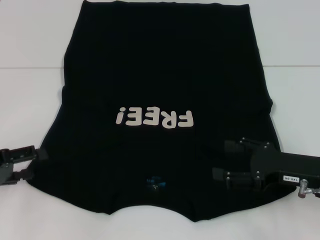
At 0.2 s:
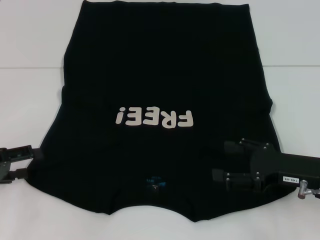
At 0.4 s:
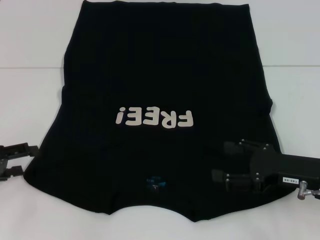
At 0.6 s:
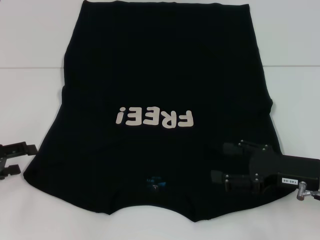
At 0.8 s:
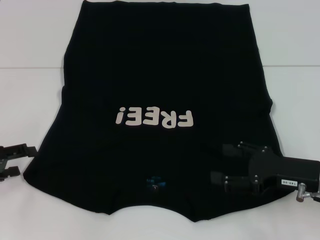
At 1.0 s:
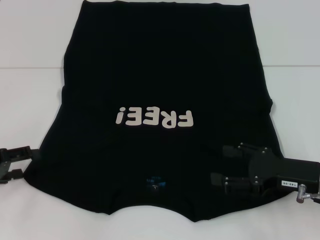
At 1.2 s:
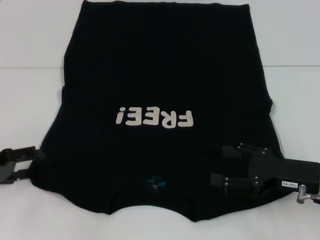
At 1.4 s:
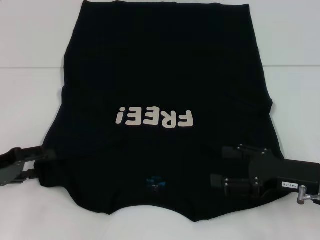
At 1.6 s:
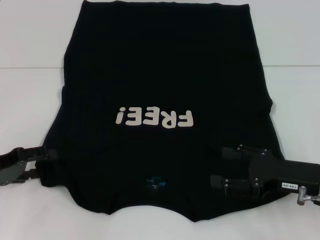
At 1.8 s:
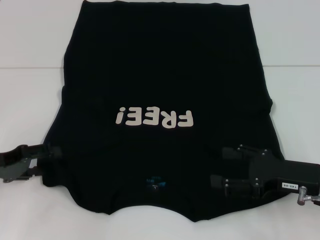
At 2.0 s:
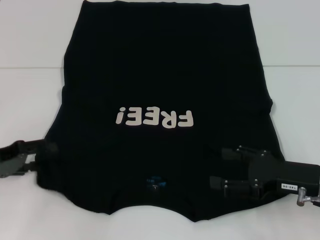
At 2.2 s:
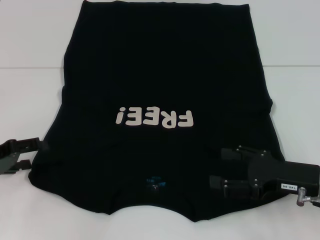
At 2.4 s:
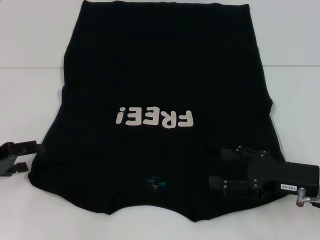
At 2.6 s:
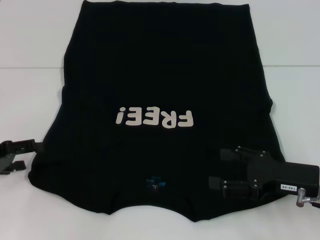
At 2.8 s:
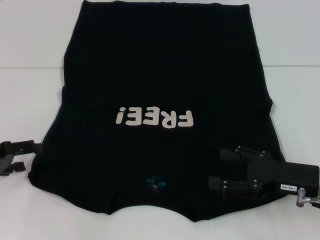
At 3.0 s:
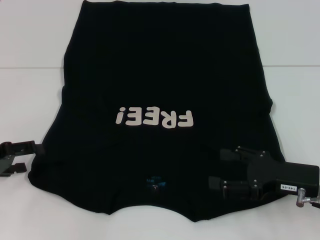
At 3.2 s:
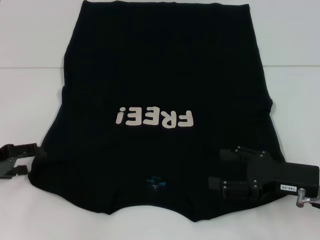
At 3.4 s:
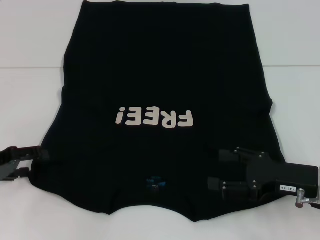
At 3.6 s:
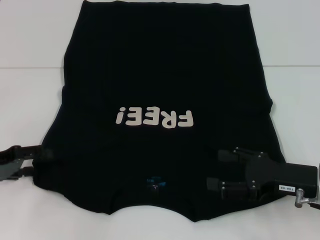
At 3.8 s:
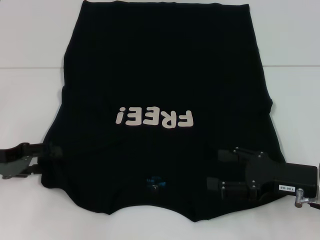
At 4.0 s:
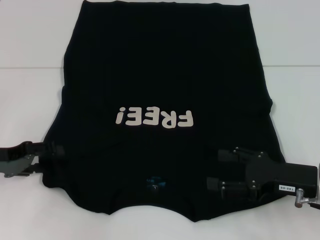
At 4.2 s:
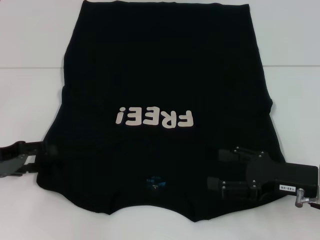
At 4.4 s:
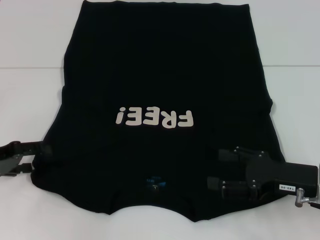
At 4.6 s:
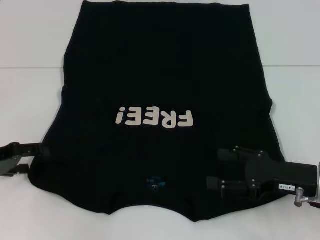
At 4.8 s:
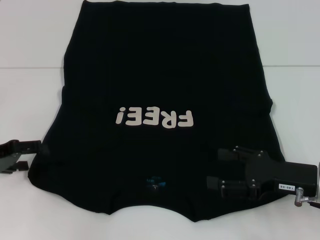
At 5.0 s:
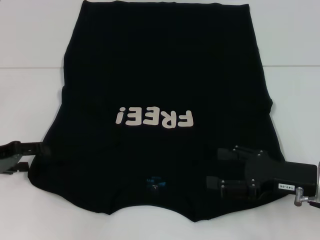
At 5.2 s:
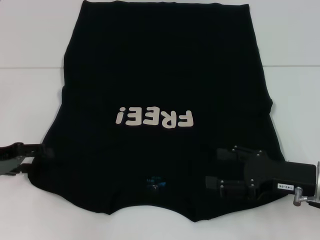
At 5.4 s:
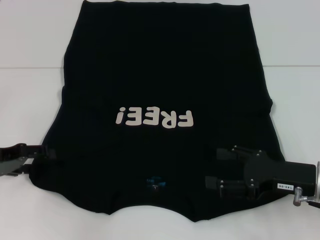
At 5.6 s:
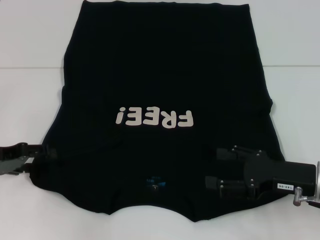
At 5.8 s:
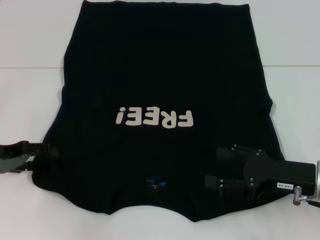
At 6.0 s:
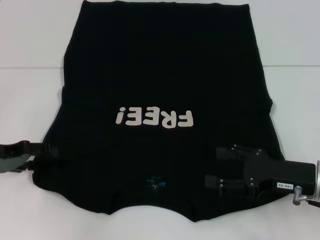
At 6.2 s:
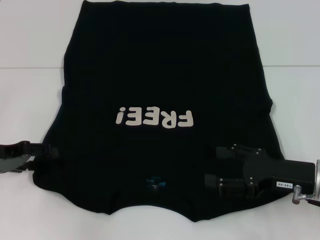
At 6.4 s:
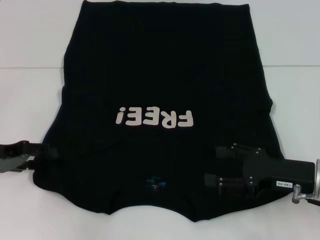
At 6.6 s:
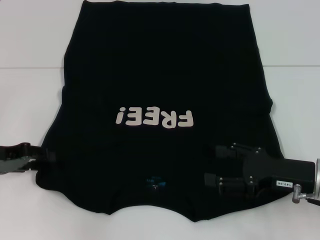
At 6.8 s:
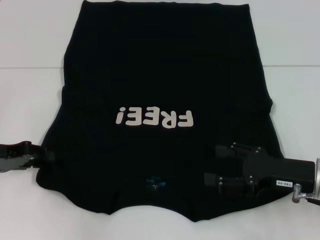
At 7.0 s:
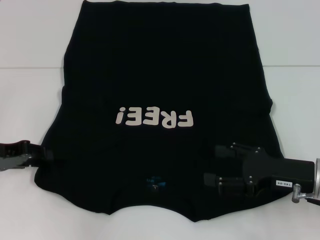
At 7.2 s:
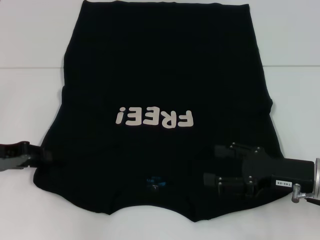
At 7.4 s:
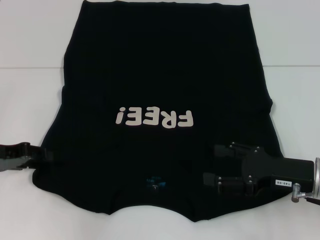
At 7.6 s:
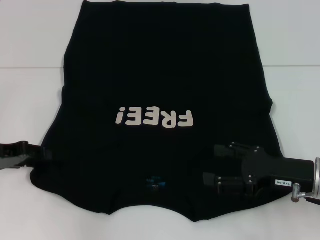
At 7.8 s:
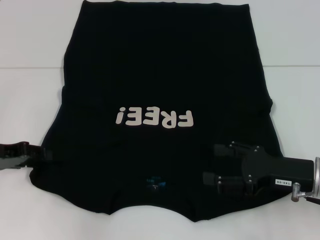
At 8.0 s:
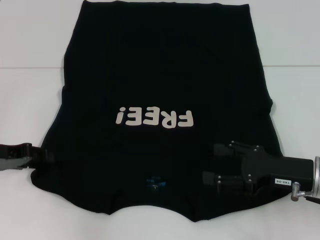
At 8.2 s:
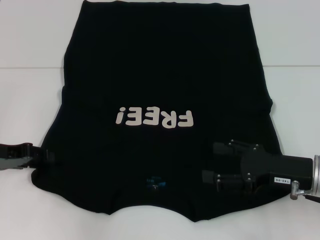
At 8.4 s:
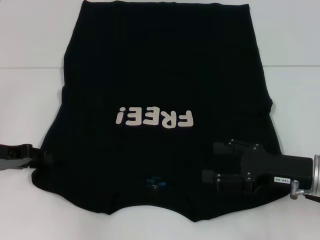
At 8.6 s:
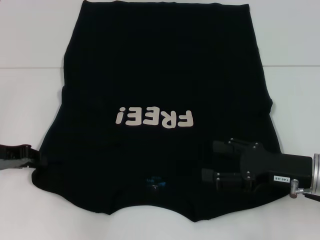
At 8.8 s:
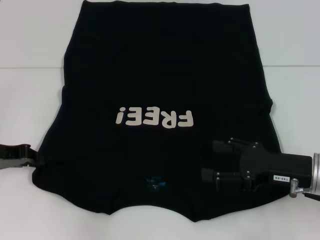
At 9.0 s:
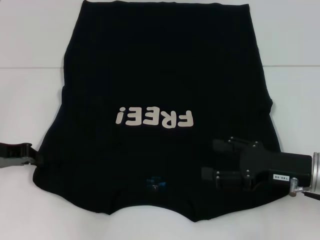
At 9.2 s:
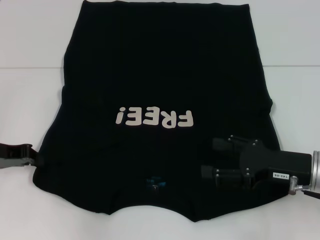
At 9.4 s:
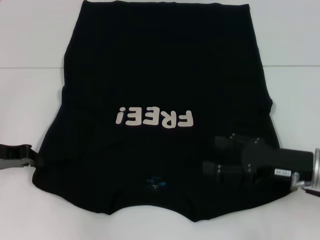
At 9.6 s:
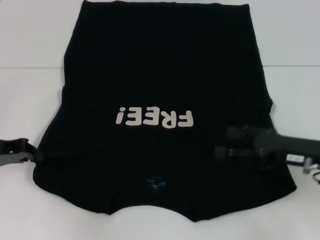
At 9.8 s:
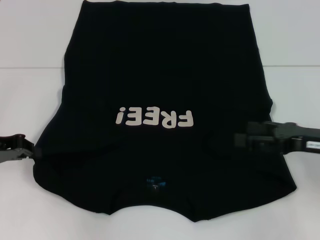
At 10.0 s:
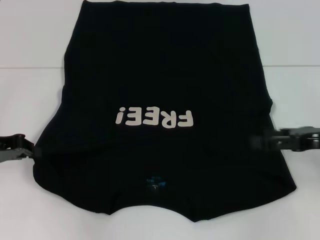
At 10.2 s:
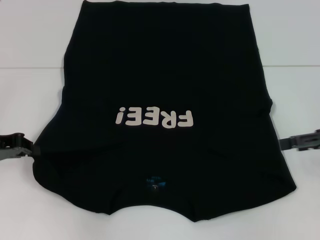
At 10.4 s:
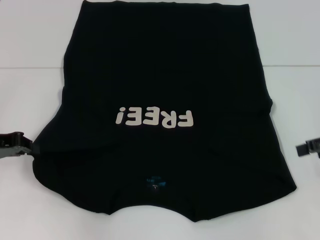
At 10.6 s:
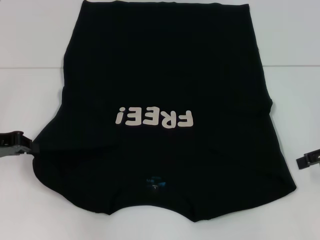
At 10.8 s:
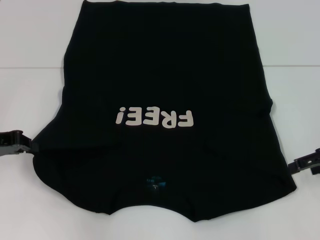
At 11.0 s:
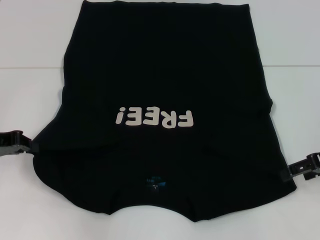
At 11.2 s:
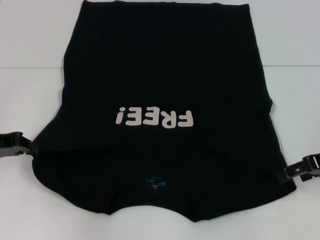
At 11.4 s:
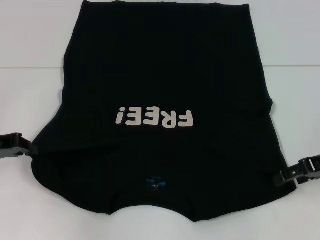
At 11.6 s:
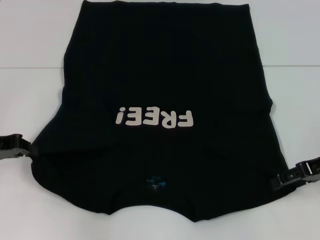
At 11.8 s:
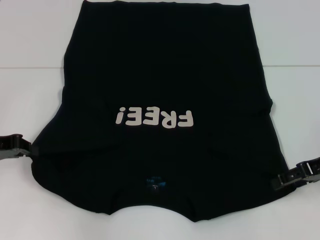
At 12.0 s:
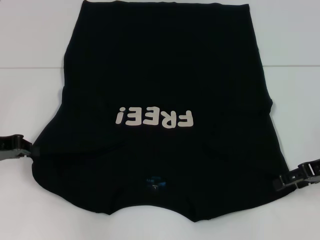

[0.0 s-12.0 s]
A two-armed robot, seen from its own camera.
Step, 0.0 to 10.0 s: Grab the bottom left corner with your left hand.
0.0 to 6.0 s: There are only small adjustments of the grippers.
6.0 to 7.6 s: The left gripper closes up.
9.0 to 10.4 s: The right gripper shifts about 15 cm to the right and upward.
10.4 to 12.0 s: The right gripper changes place by approximately 5 cm.

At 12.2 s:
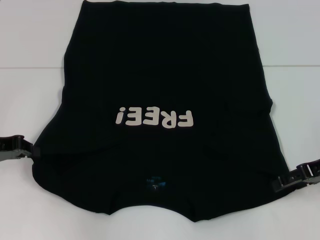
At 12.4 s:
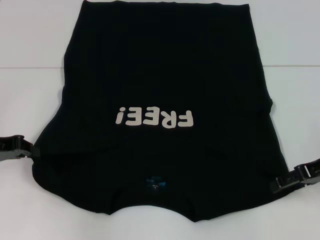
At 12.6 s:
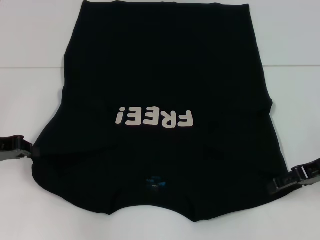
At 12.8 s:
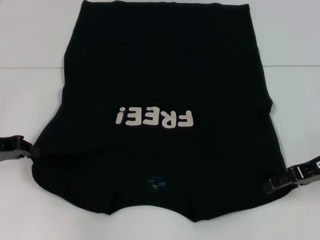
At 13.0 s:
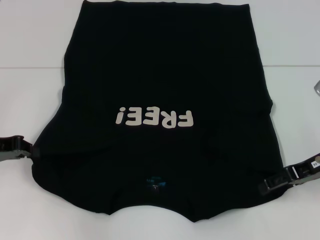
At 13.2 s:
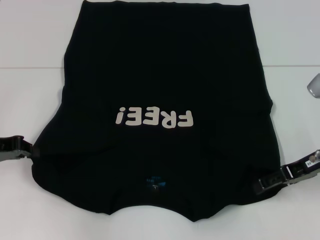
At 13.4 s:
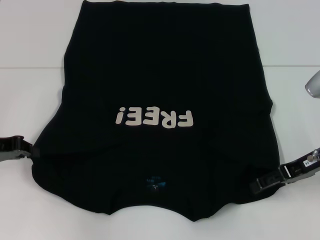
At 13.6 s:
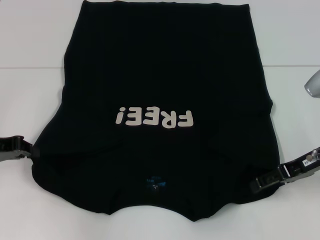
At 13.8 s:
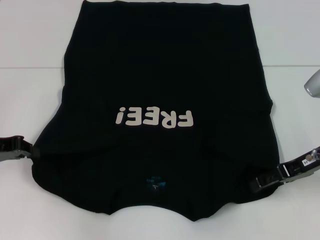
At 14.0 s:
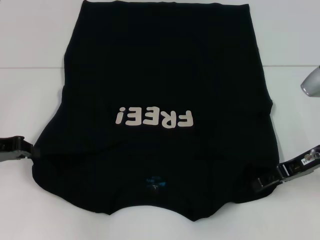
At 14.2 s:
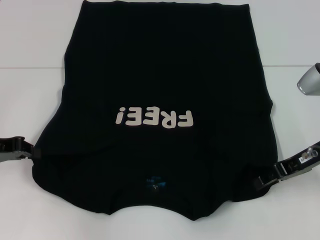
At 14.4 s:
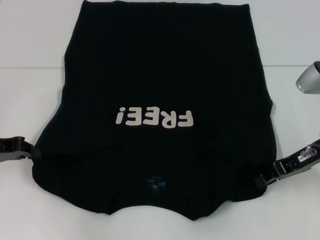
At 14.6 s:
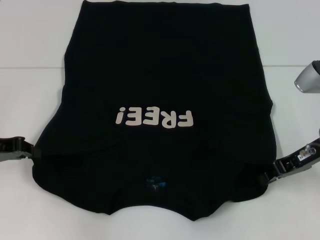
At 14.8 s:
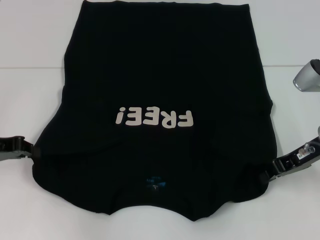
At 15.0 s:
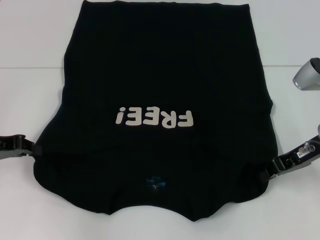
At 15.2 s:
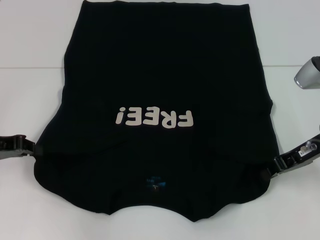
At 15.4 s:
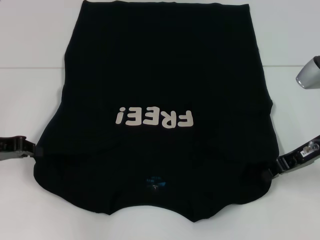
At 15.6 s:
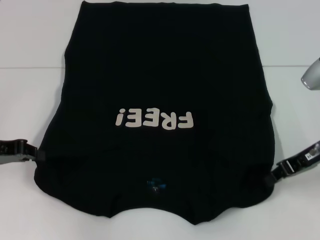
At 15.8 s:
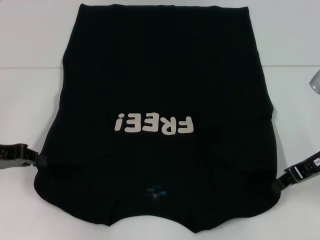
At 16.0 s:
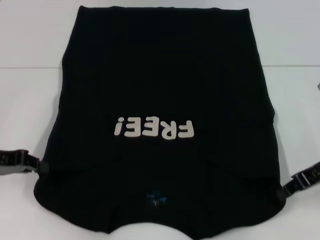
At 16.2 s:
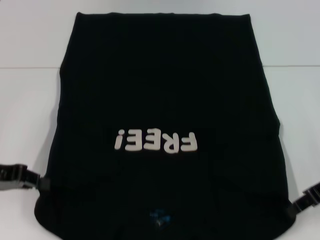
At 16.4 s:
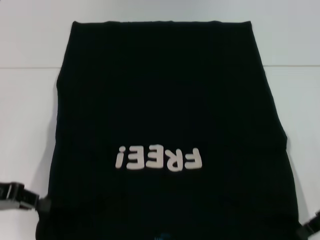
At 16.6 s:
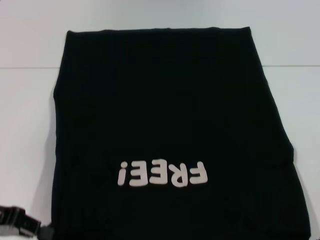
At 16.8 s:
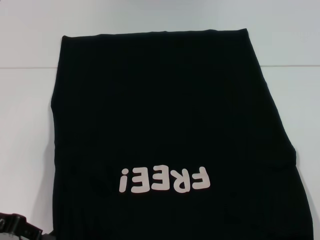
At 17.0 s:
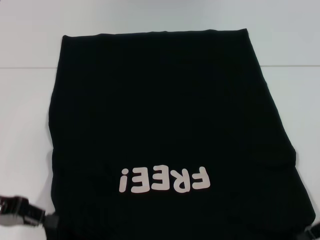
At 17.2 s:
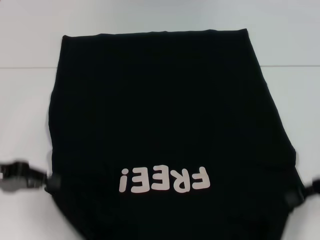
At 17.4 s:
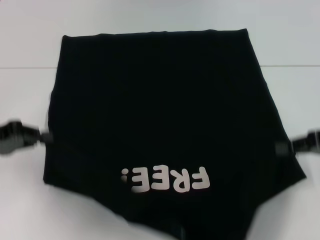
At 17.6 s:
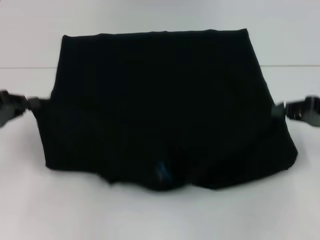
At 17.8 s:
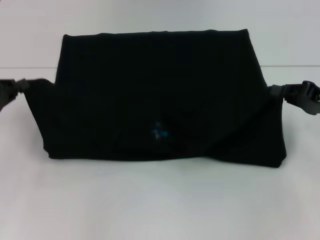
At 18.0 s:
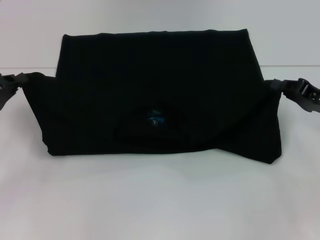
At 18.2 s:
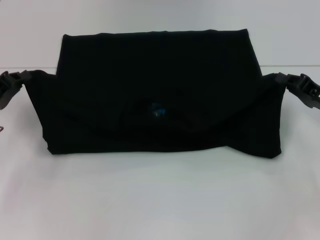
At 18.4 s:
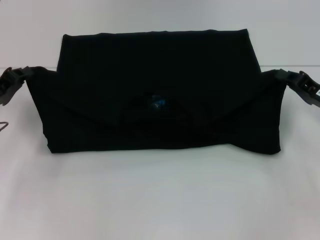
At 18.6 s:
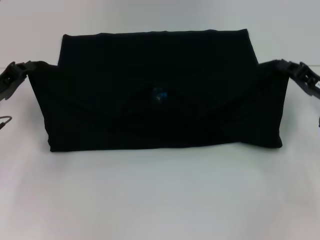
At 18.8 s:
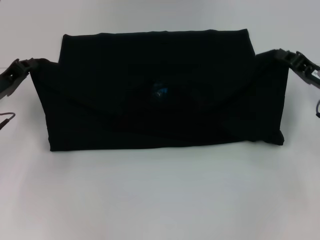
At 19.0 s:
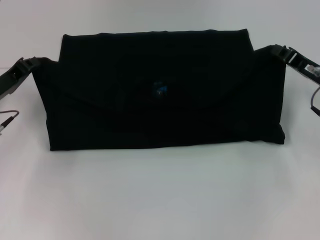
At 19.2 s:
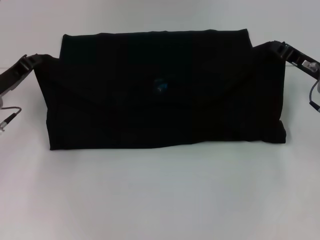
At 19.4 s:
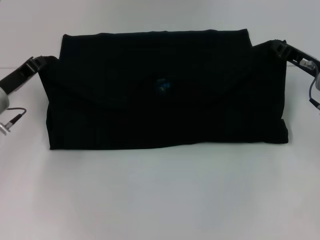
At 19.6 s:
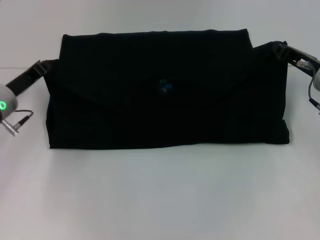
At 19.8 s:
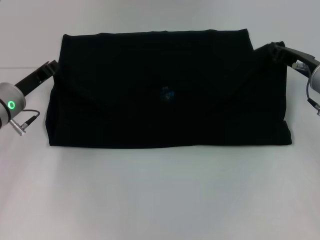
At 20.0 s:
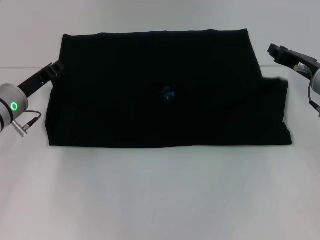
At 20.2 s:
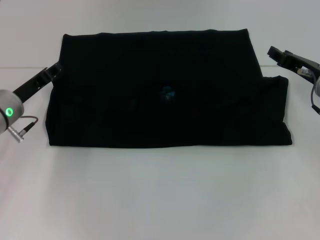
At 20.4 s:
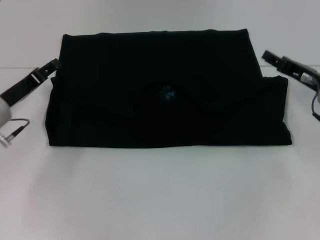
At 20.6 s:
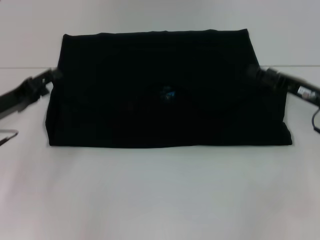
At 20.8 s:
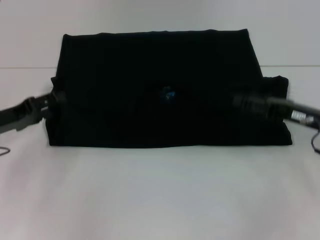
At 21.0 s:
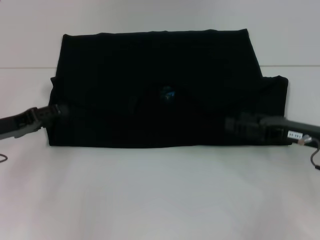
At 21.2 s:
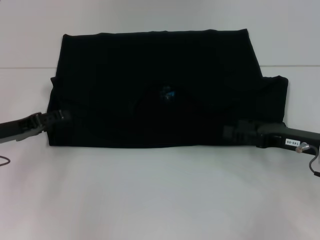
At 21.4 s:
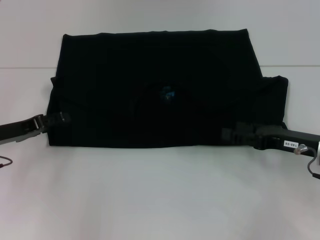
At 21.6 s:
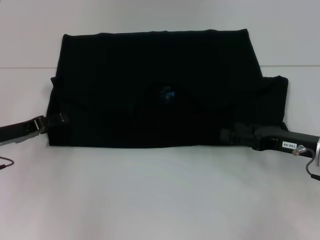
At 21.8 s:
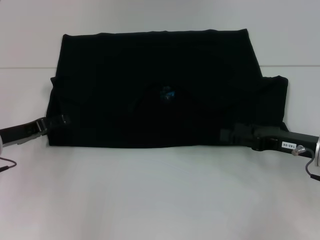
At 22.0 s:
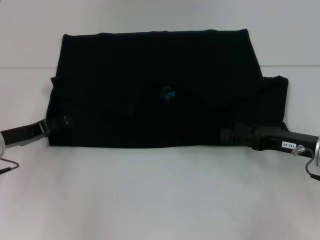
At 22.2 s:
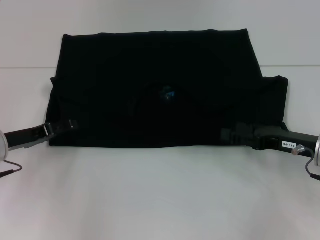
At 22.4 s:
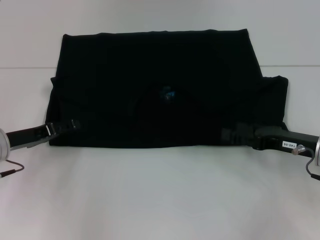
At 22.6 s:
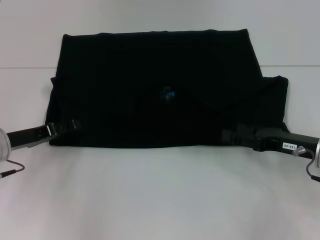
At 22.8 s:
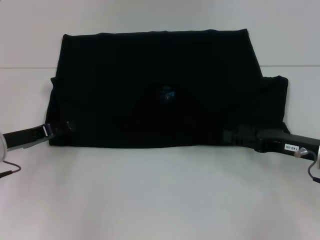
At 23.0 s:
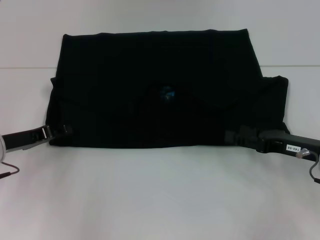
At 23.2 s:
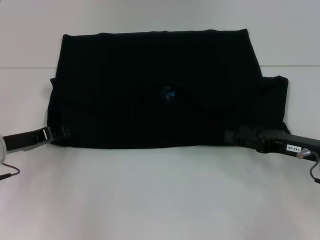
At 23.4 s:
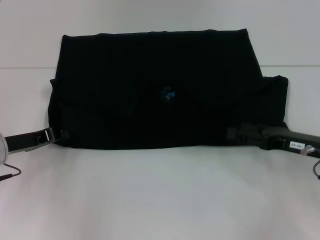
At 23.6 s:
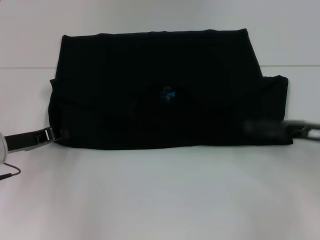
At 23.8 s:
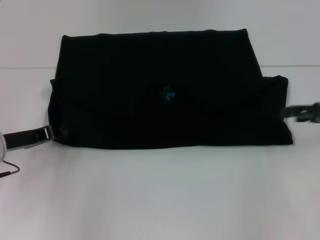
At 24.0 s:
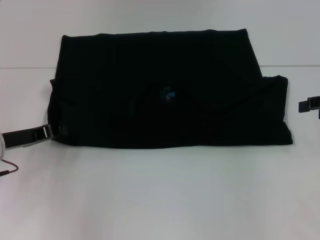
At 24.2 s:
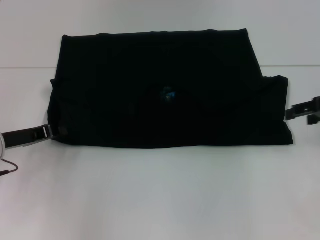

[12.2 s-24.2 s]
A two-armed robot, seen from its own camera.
Step, 12.2 to 15.6 s: Grab the bottom right corner with your right hand.
Step, 15.8 to 20.2 s: Fold the clothes with your left hand.
Step, 15.8 to 20.2 s: Fold the clothes with your right hand.
12.2 to 13.8 s: The grippers stay close to where they were, moving slightly.
13.8 to 15.2 s: The right gripper closes.
15.2 to 16.6 s: The left gripper is displaced backward by about 5 cm, while the right gripper is displaced backward and to the right by roughly 10 cm.
16.6 to 18.2 s: Both grippers travel together forward, about 5 cm.
18.2 to 19.8 s: The left gripper heads to the right and forward, covering roughly 10 cm. Meanwhile the right gripper shifts about 5 cm forward.
19.8 to 21.2 s: The left gripper heads backward and to the left, covering about 10 cm, and opens its fingers; the right gripper travels backward by some 10 cm, and opens its fingers.
21.2 to 22.6 s: The grippers stay close to where they were, moving slightly.
22.6 to 24.2 s: The left gripper closes. The right gripper shifts some 15 cm upward, to the right and forward.
